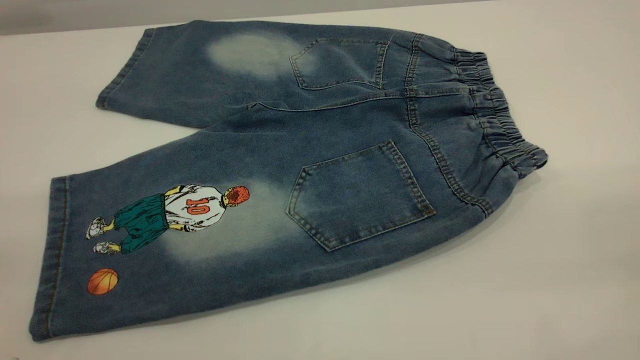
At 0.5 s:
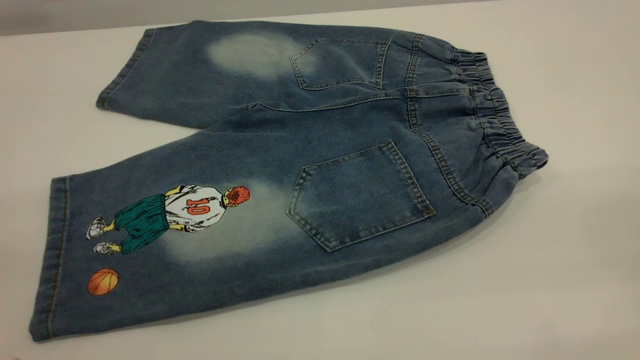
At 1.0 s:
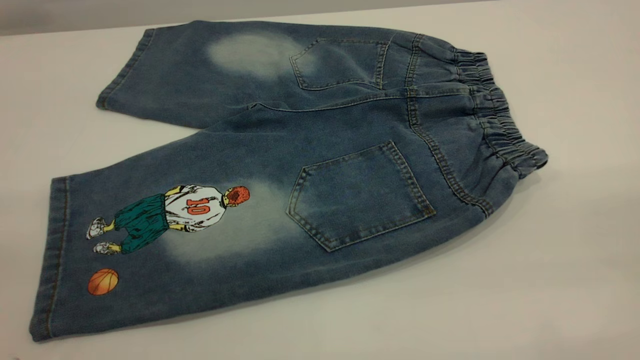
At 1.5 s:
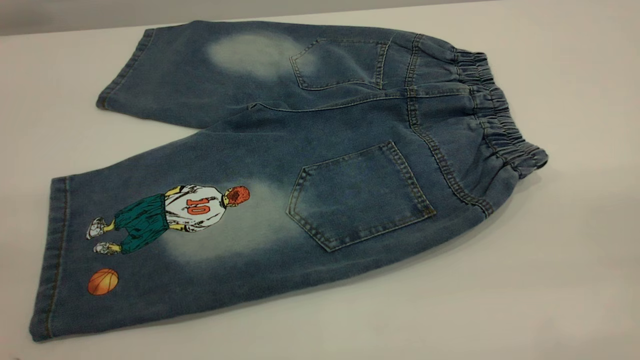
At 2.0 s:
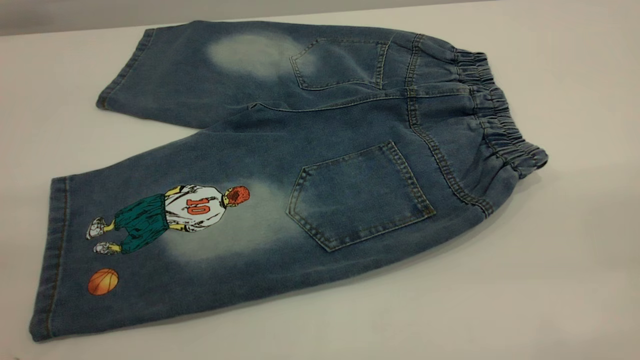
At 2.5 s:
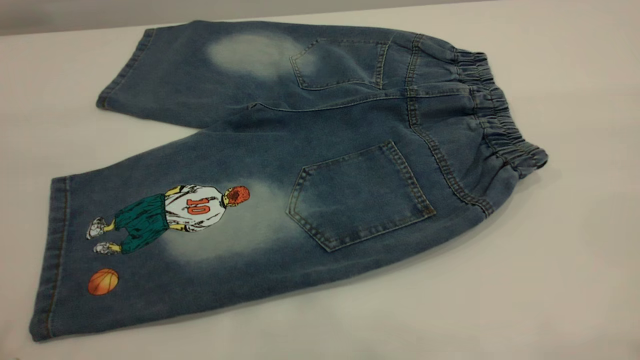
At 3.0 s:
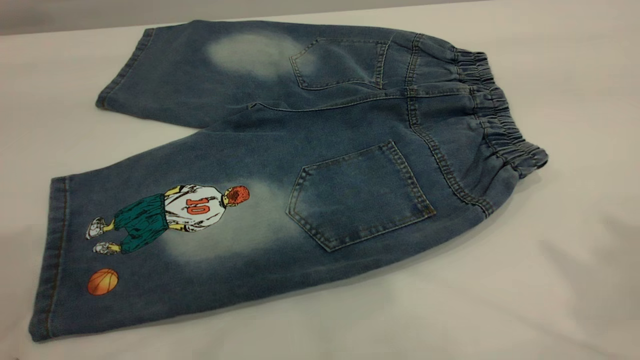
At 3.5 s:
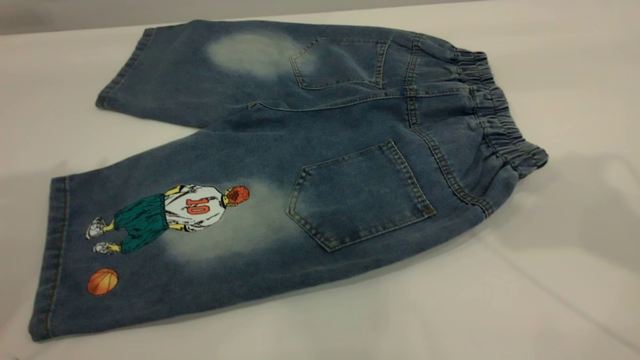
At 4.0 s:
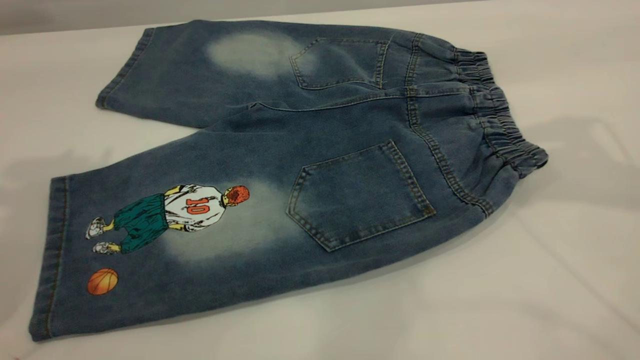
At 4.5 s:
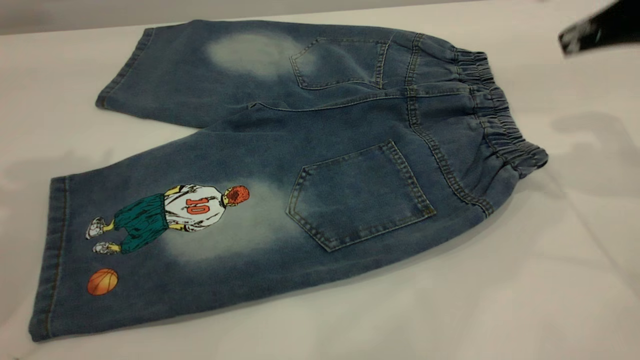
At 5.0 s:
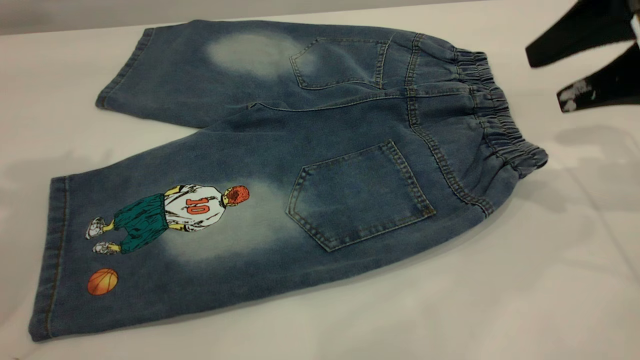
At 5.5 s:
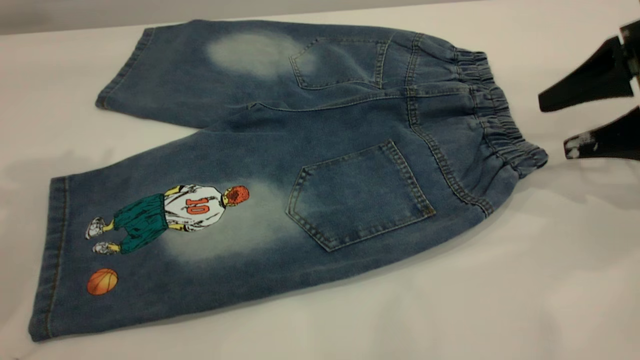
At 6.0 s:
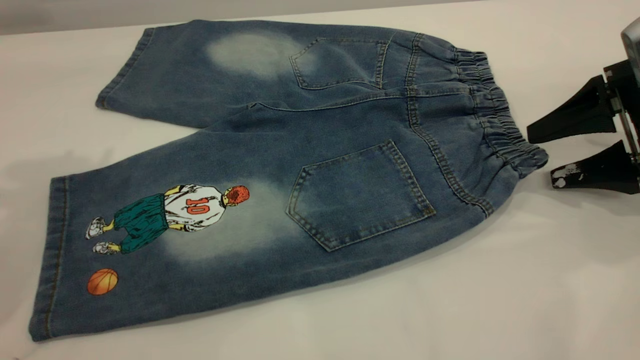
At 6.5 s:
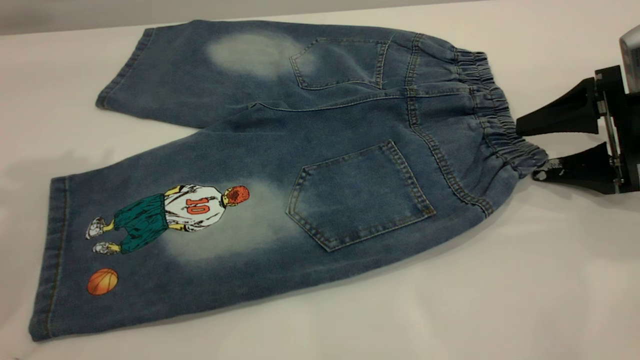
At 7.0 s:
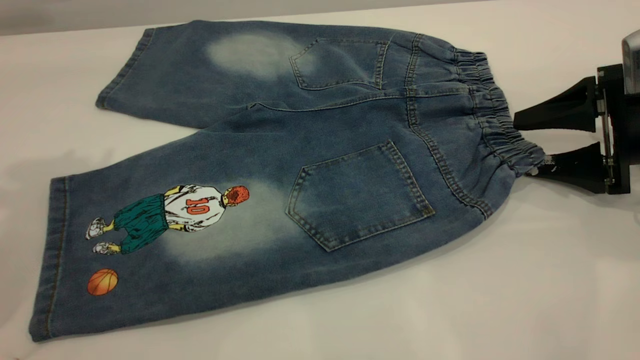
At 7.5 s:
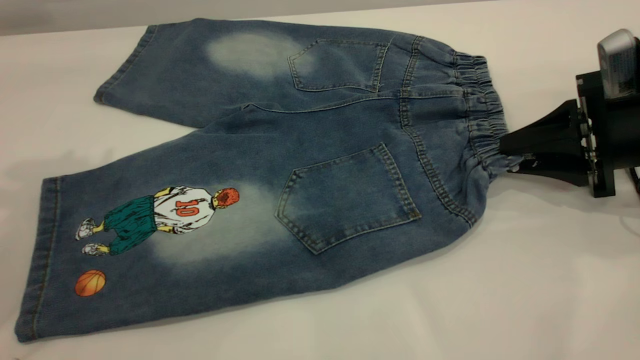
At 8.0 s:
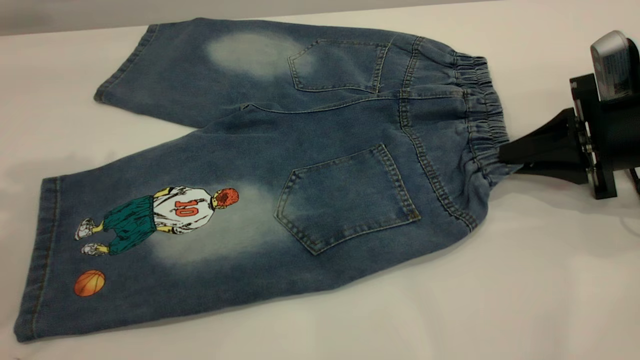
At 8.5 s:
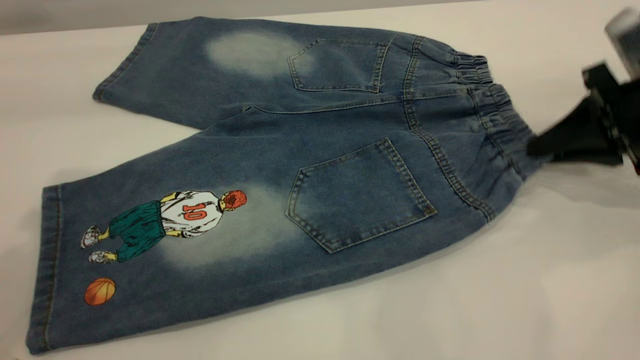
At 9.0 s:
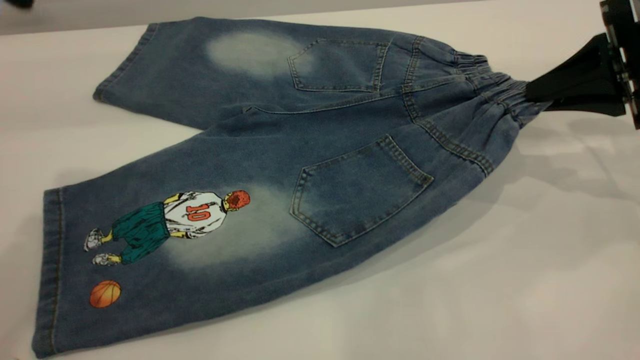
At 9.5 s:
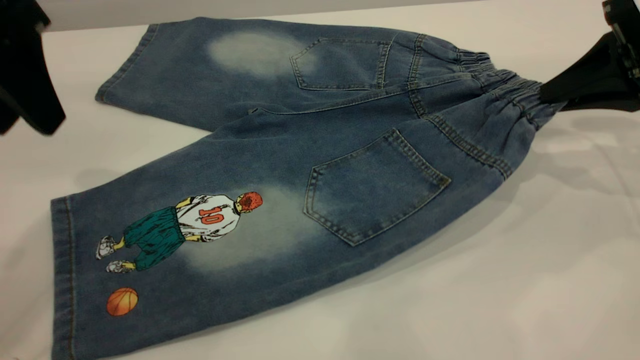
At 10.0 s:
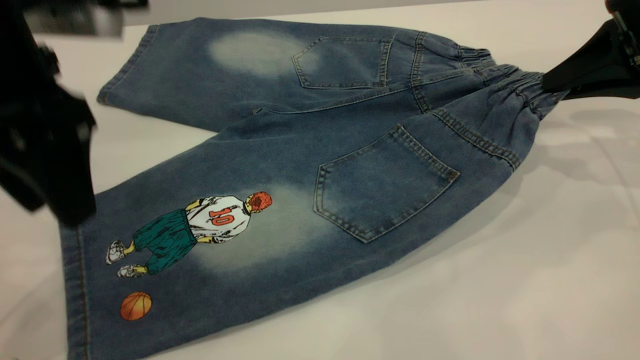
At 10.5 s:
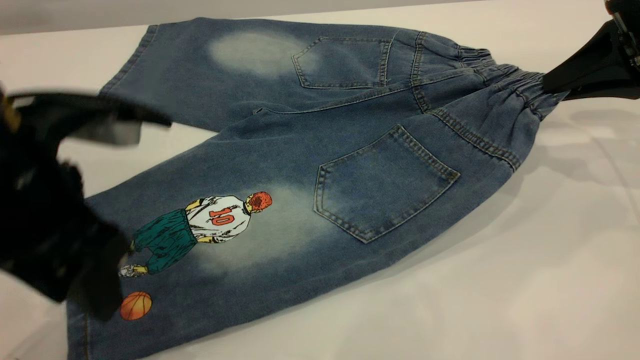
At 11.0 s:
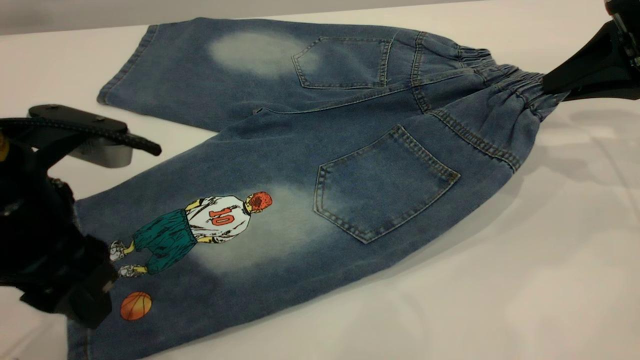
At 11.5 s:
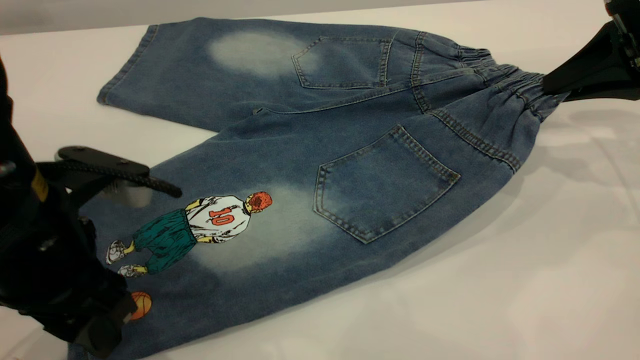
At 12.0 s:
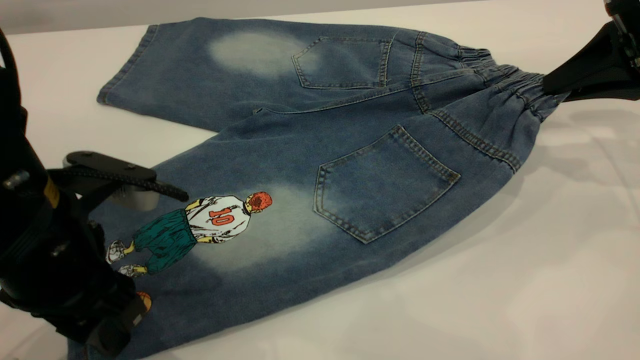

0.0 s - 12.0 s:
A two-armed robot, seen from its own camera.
4.0 s - 6.0 s: The right gripper travels downward by some 20 cm.
6.0 s - 8.0 s: The right gripper closes up.
8.0 s - 10.0 s: The left gripper heads downward and to the right, covering some 15 cm. Meanwhile the right gripper shifts some 10 cm upward.
10.0 s - 12.0 s: The left gripper heads downward, covering some 10 cm.

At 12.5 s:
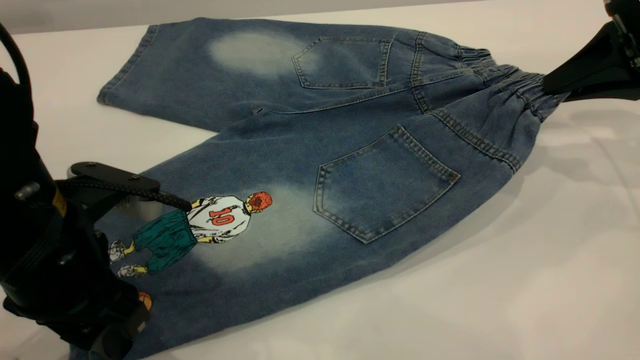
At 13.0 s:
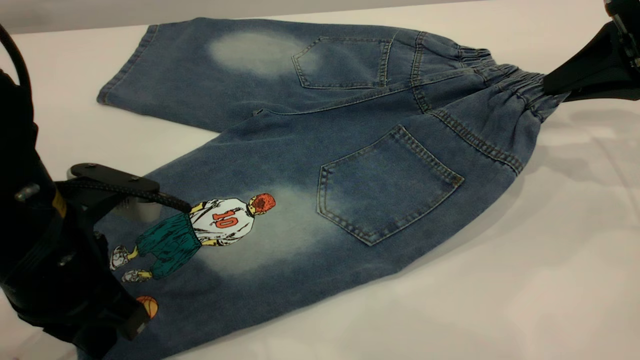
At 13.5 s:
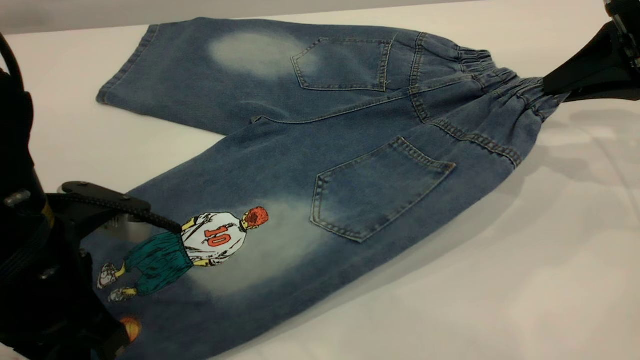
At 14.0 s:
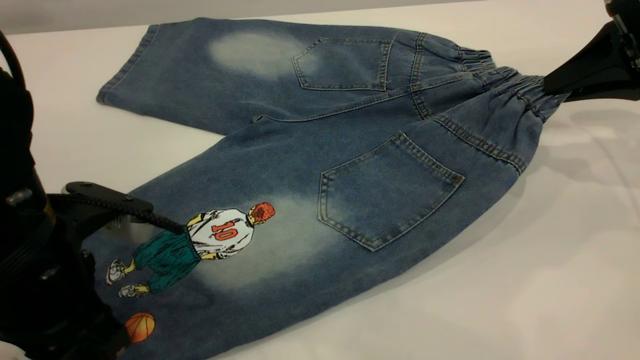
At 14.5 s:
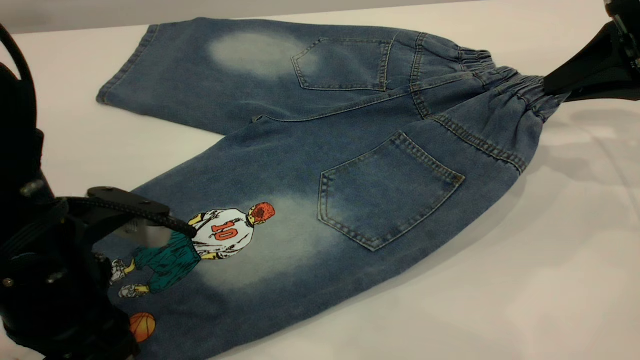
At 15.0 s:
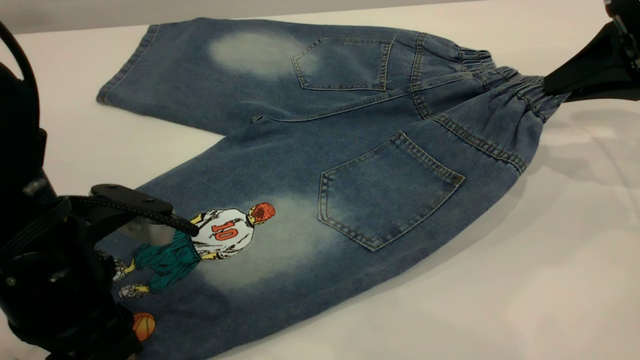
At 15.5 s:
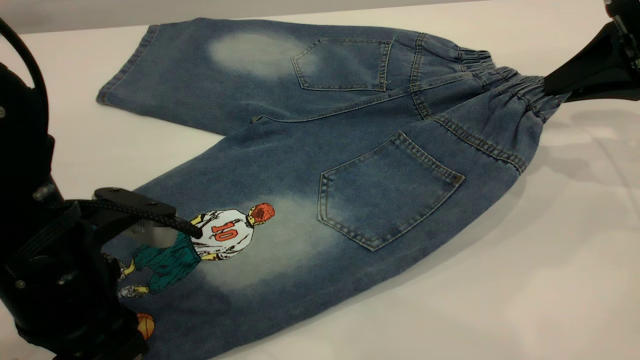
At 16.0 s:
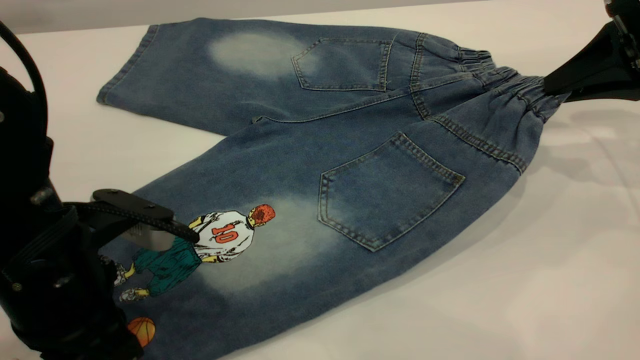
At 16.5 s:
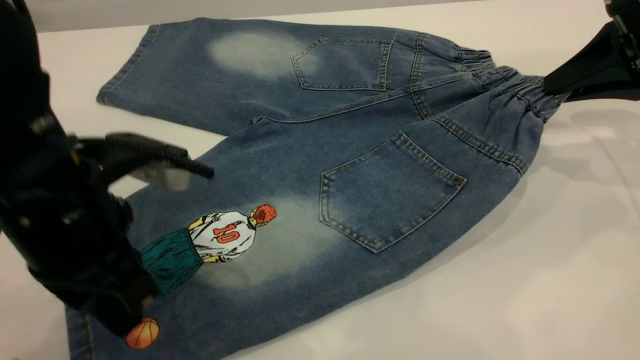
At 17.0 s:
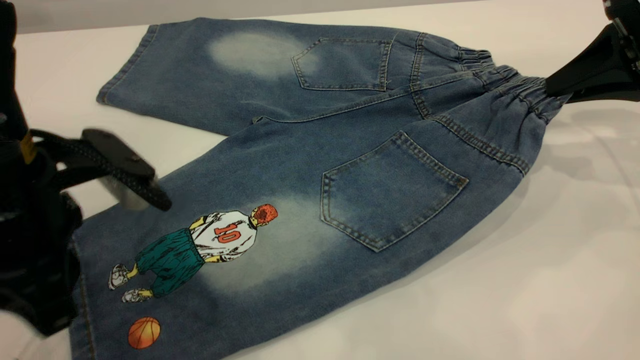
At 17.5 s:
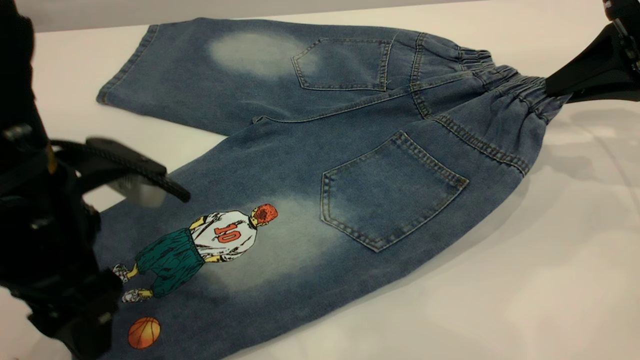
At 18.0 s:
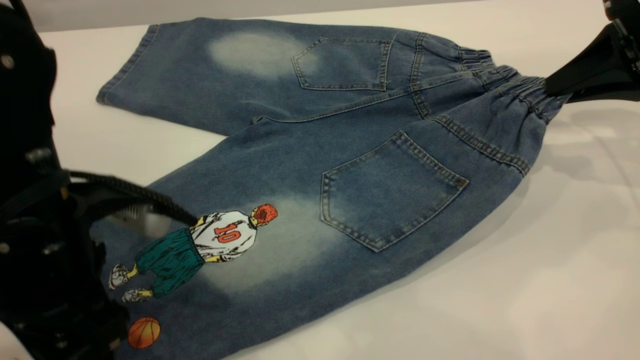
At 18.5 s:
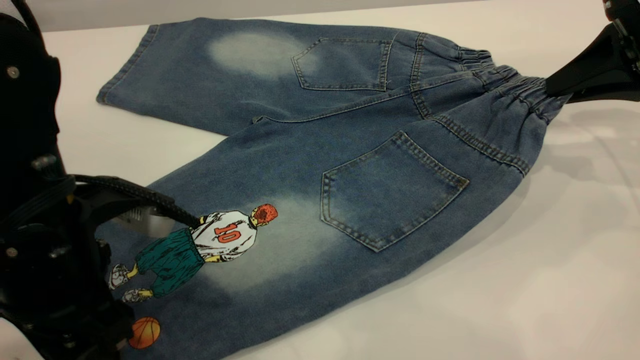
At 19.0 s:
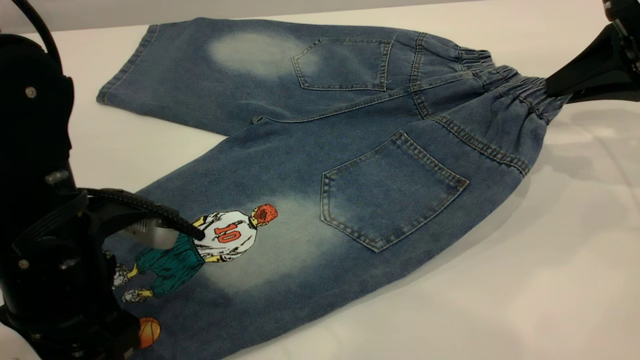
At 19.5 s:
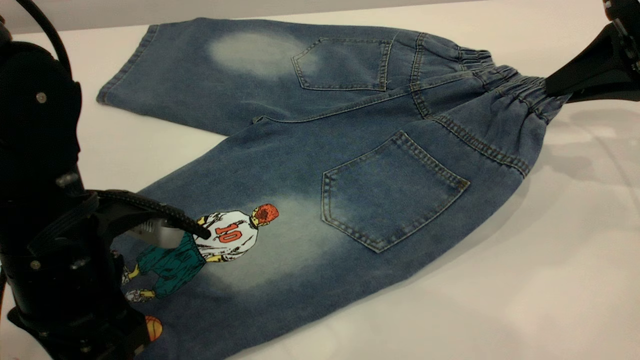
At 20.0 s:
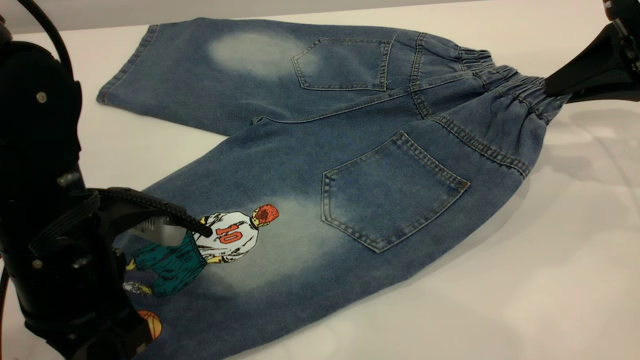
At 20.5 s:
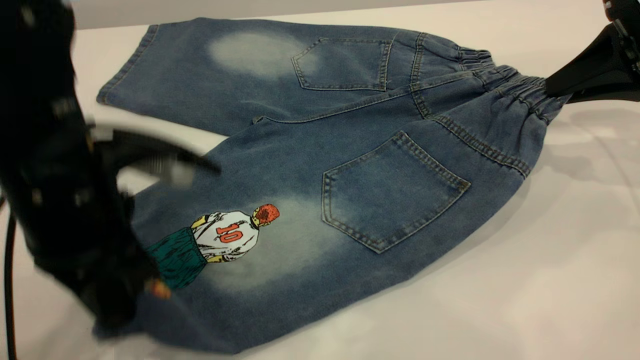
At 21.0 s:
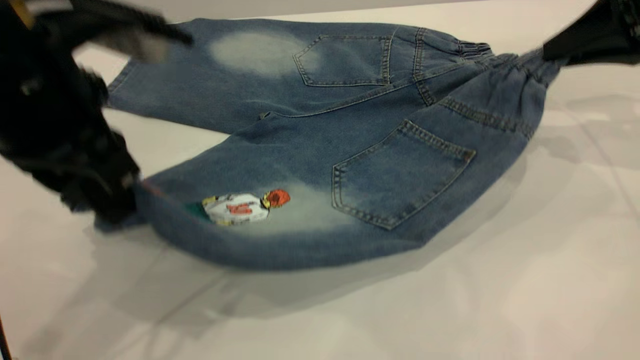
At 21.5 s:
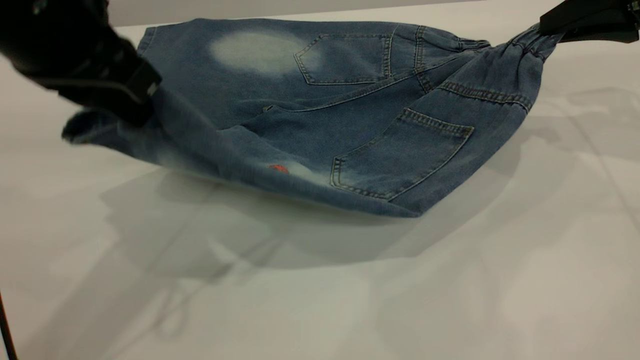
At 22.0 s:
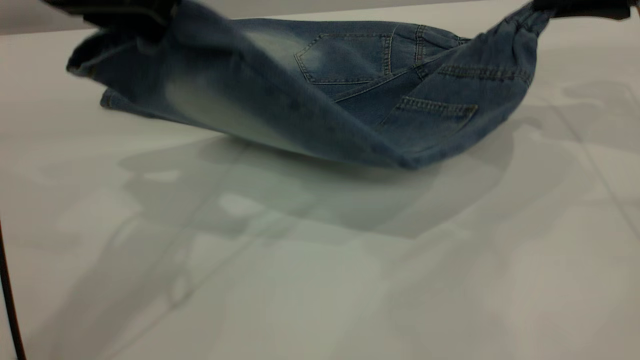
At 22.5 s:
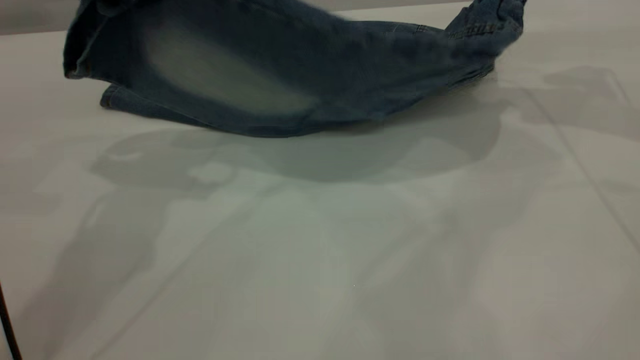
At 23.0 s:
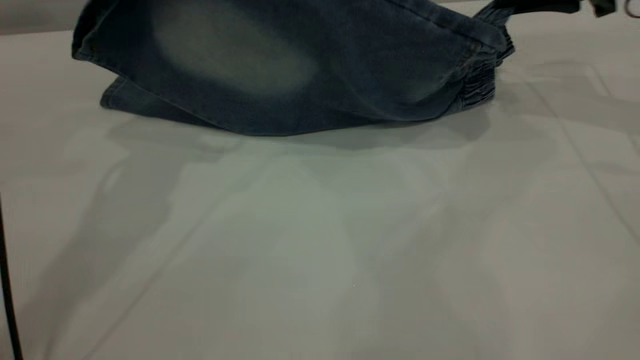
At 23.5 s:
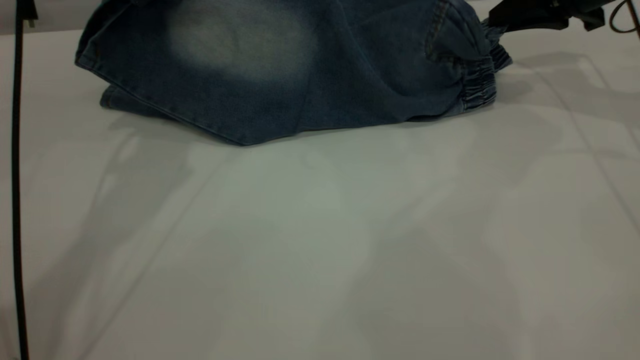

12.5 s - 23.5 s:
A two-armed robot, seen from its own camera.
12.5 s - 14.5 s: The left gripper closes, then reopens.
14.5 s - 16.0 s: The left gripper closes up.
16.0 s - 18.0 s: The left gripper opens.
18.0 s - 20.0 s: The left gripper closes its fingers.
20.0 s - 21.5 s: The left gripper moves upward and forward, about 15 cm.
21.5 s - 23.5 s: The left gripper is displaced forward by about 15 cm. Meanwhile the right gripper goes some 10 cm forward.
